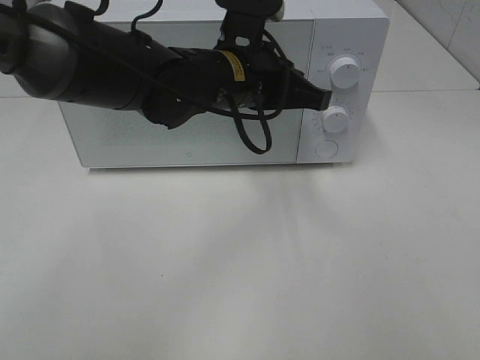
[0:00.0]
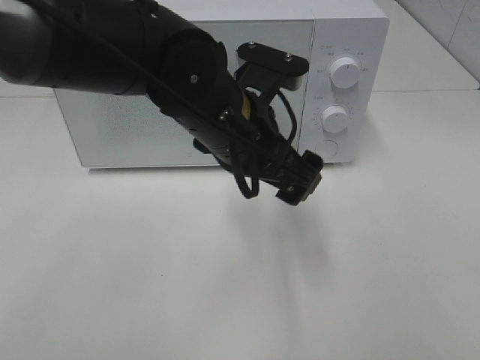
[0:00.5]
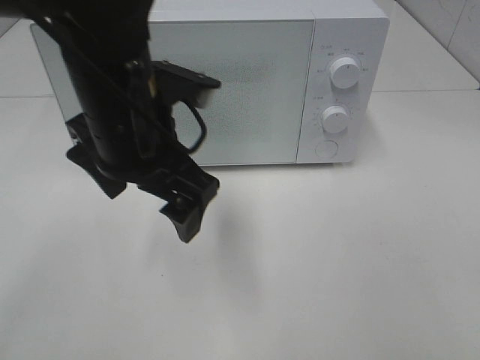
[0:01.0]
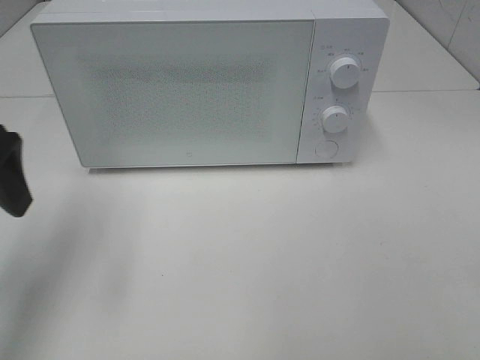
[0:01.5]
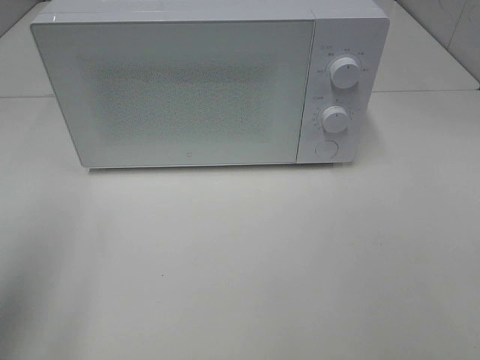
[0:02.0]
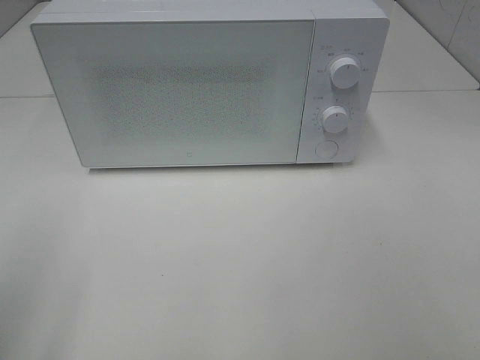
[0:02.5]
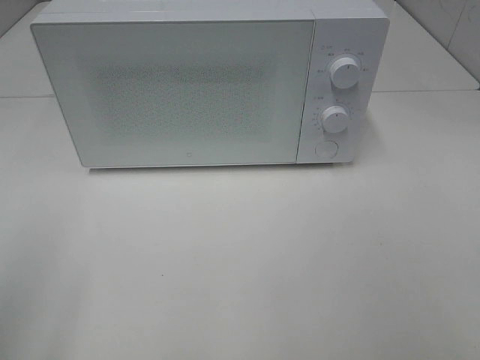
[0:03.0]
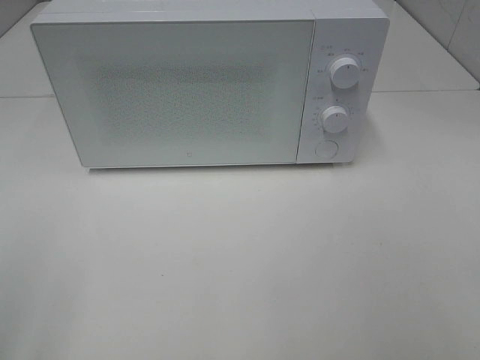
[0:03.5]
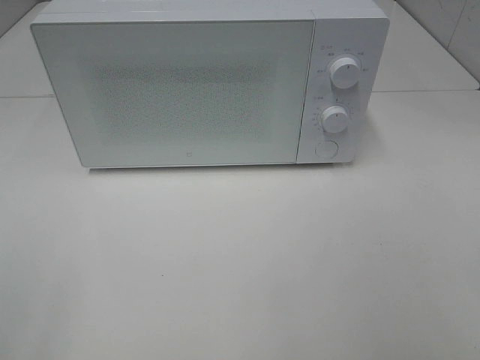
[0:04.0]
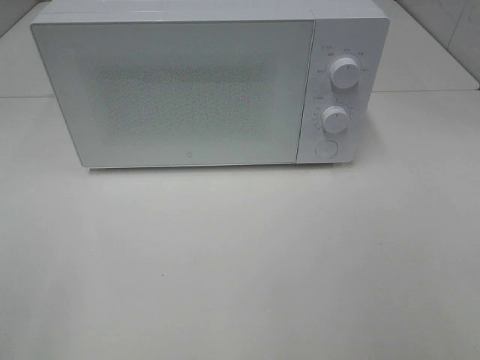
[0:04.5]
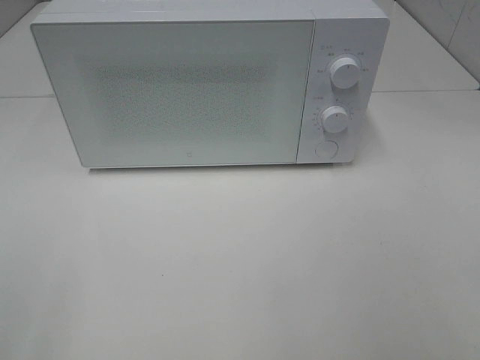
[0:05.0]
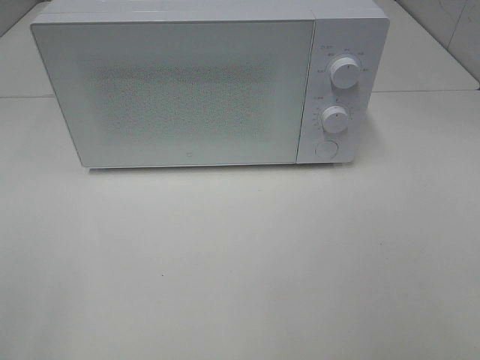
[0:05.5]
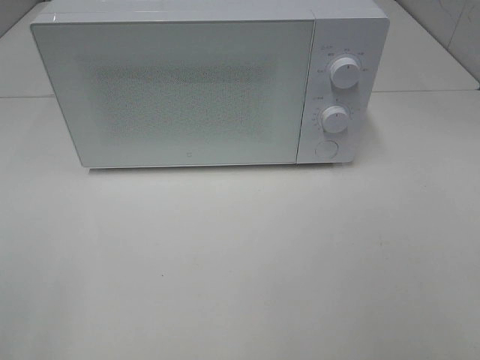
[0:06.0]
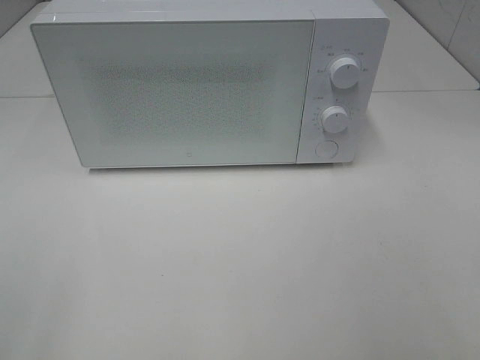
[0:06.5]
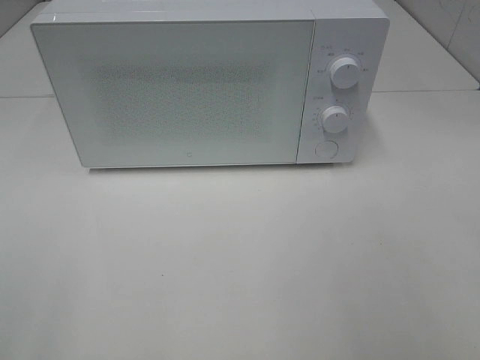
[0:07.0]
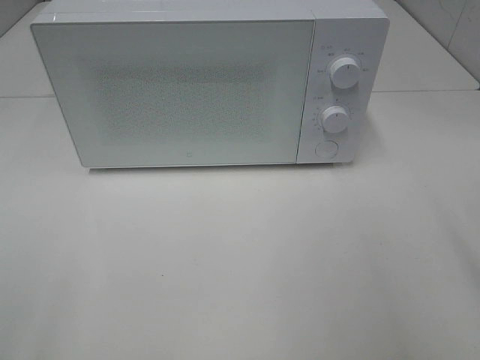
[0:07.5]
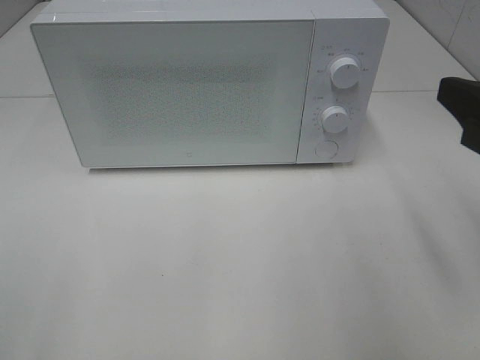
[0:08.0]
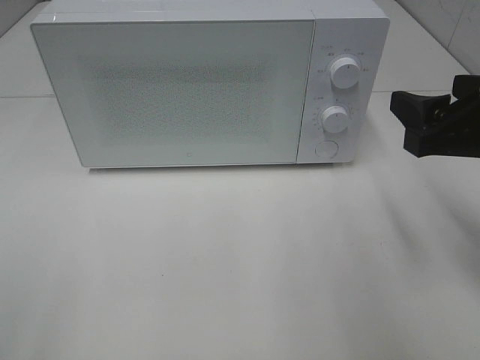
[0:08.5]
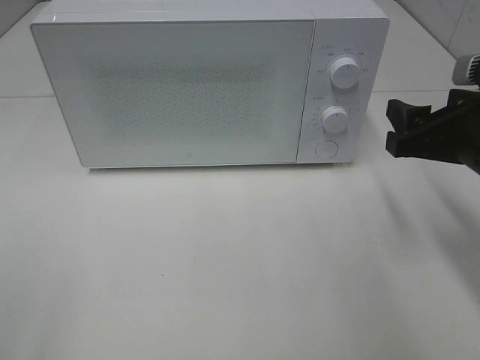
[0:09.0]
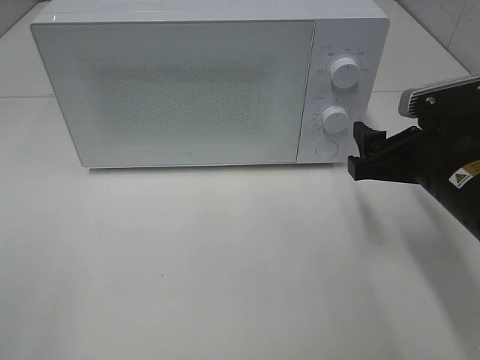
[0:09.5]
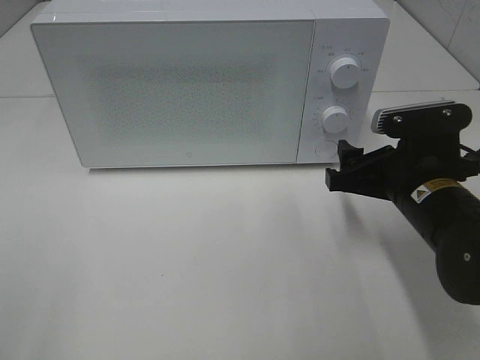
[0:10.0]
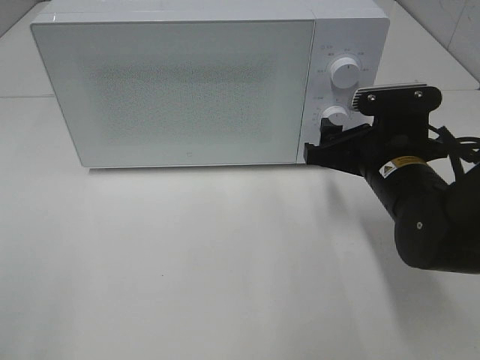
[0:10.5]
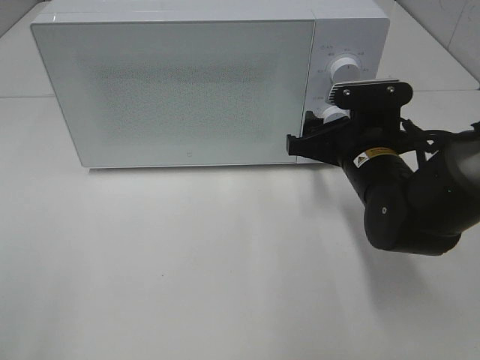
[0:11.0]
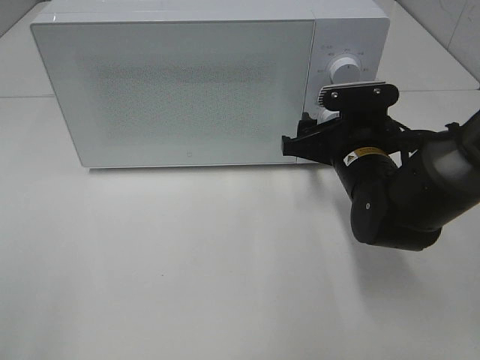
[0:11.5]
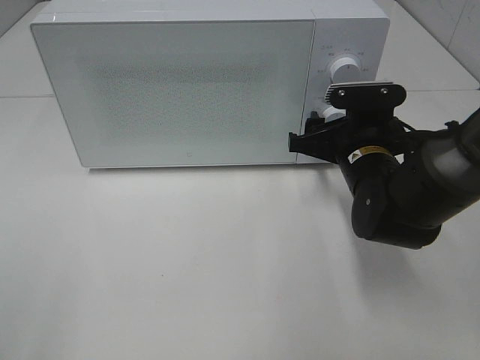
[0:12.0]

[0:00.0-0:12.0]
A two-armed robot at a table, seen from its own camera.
Task of the whole recording: Heat the burger.
0:00.0 to 0:02.0: The left gripper moves to the left and backward, approximately 35 cm, and opens its fingers.
0:02.0 to 0:04.0: The left gripper is displaced backward by some 15 cm.
0:04.0 to 0:06.0: Both grippers stay put.
0:06.0 to 0:08.0: The right gripper shifts approximately 15 cm forward.
0:08.0 to 0:10.0: The right gripper shifts some 15 cm downward, forward and to the left.
0:10.0 to 0:12.0: The right gripper goes about 5 cm forward.

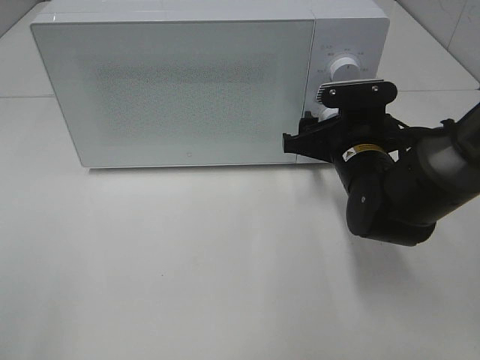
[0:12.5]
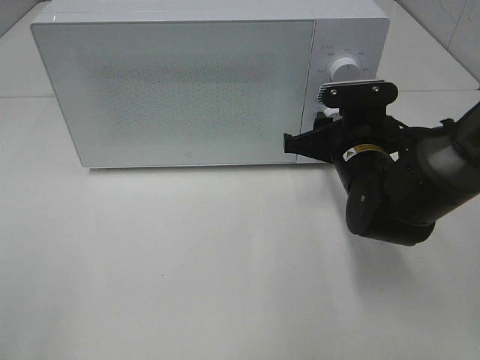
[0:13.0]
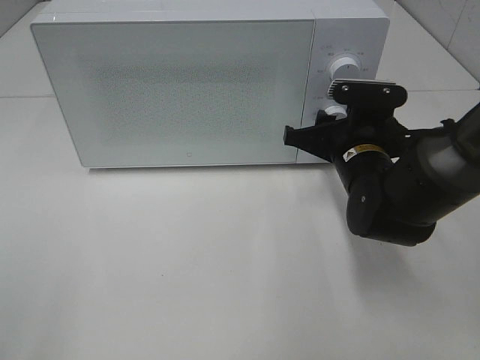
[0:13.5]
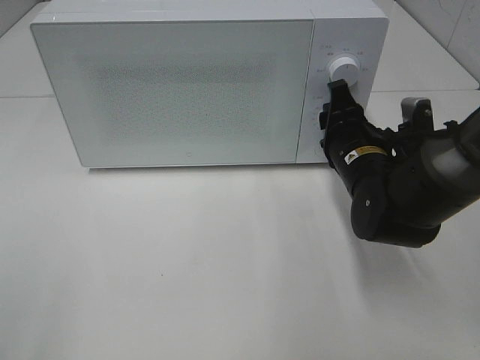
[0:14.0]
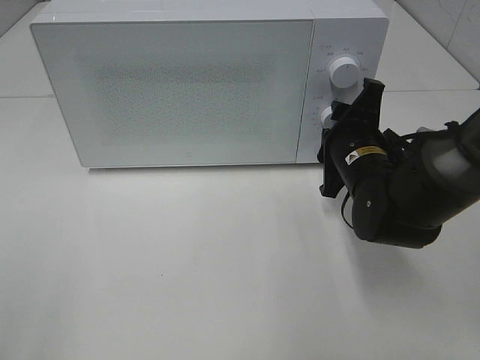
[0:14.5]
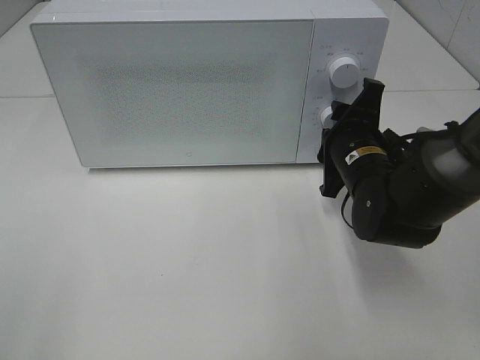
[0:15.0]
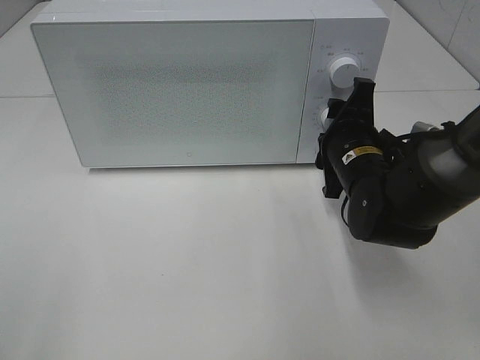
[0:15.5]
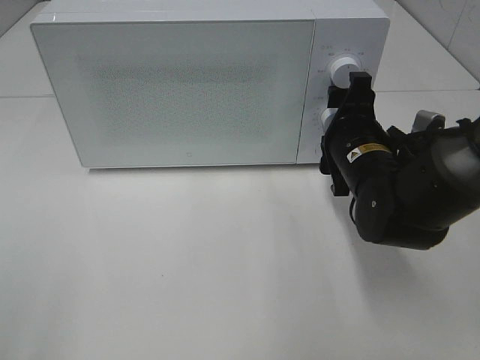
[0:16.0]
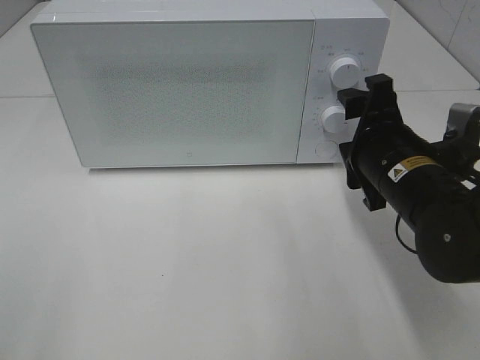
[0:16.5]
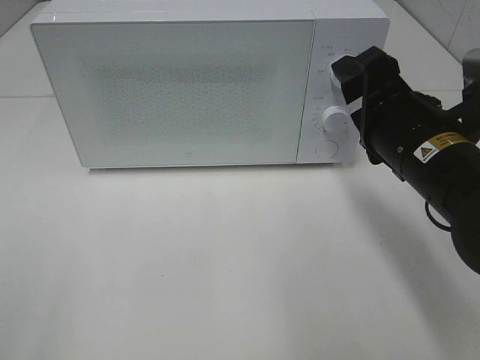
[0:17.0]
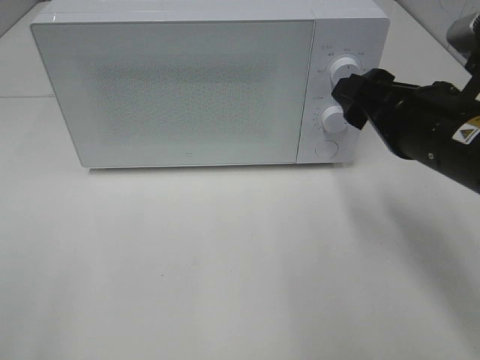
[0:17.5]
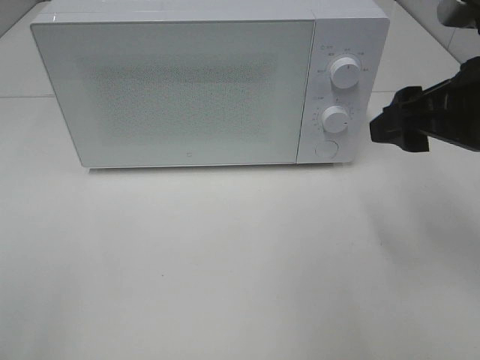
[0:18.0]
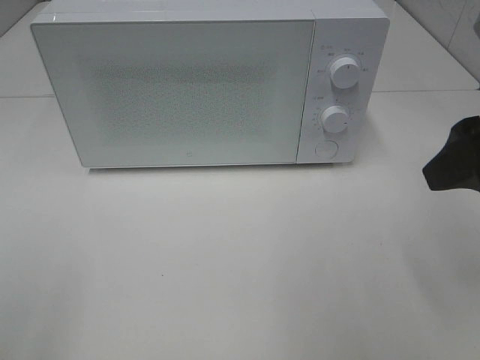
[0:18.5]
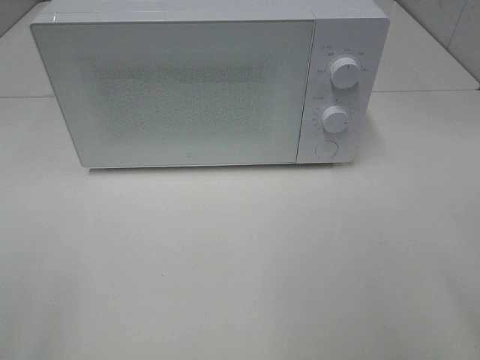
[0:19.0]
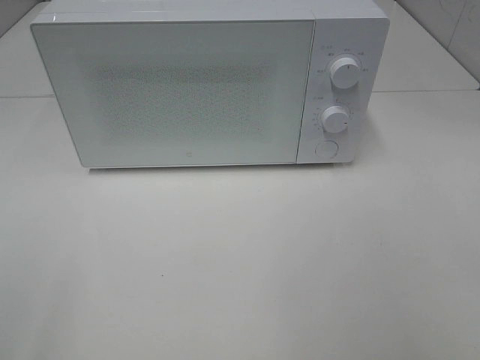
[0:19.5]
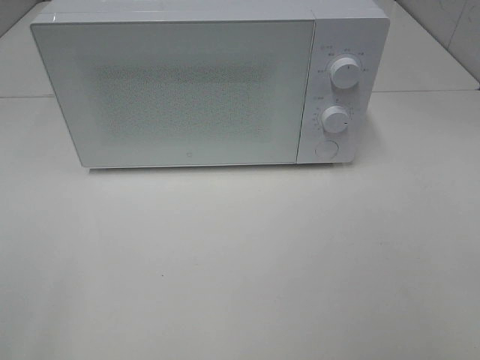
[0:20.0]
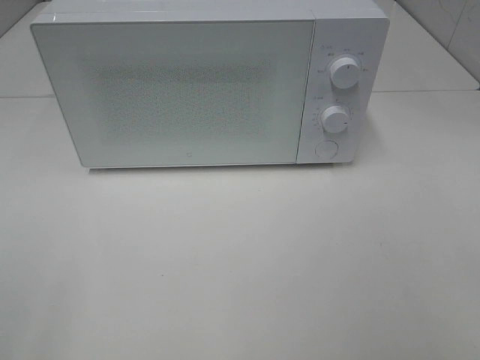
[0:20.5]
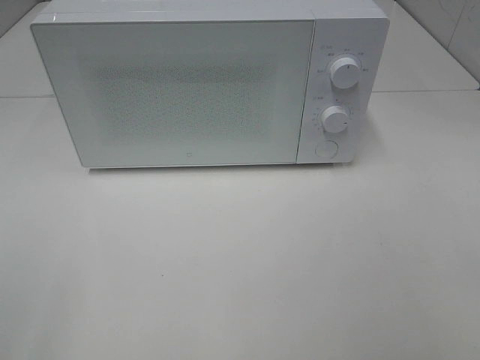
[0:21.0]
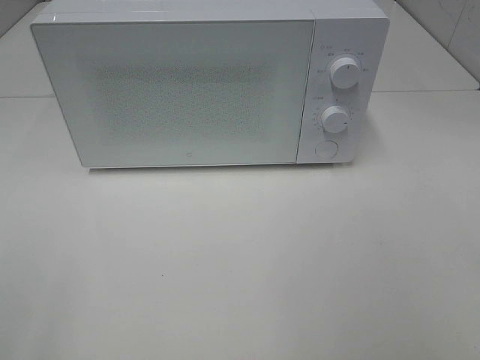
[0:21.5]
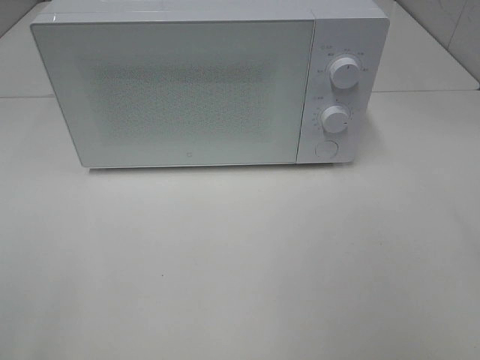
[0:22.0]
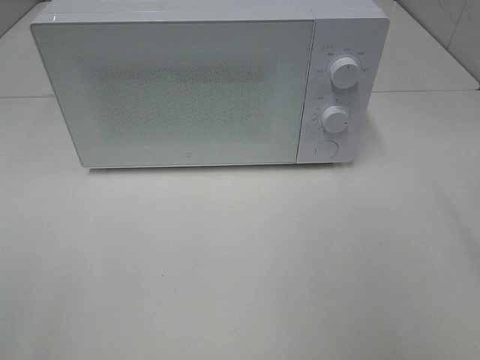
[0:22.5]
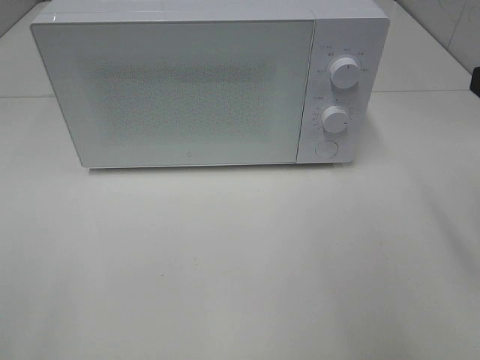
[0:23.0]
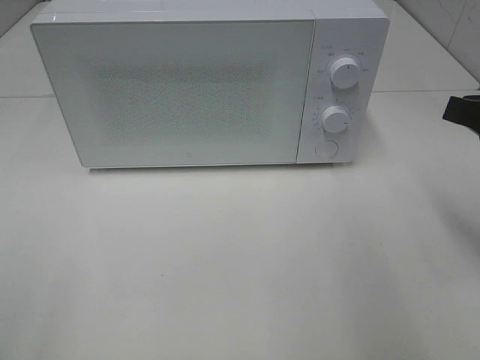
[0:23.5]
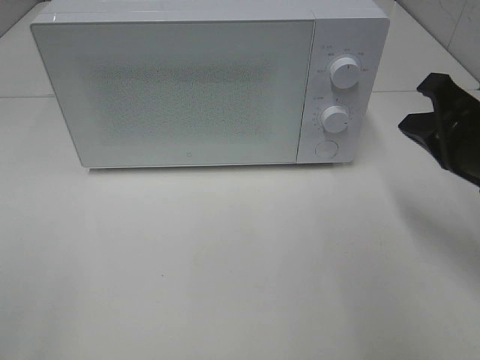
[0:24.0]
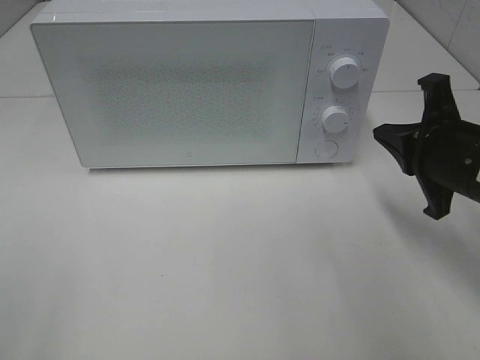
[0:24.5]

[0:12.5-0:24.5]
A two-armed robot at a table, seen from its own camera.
Task of the whole recording: Heat the burger.
Step, 0:12.5 to 0:15.0: Right hand: twist timer button.
0:12.5 to 0:14.5: The right gripper closes.
0:14.5 to 0:16.5: The right gripper heads backward, covering approximately 5 cm, and opens up.
0:16.5 to 0:18.5: The right gripper travels upward, backward and to the right by roughly 20 cm.
0:18.5 to 0:20.5: The right gripper heads backward, covering some 20 cm.
0:22.5 to 0:24.5: The right gripper goes some 20 cm downward and forward, and closes its fingers.

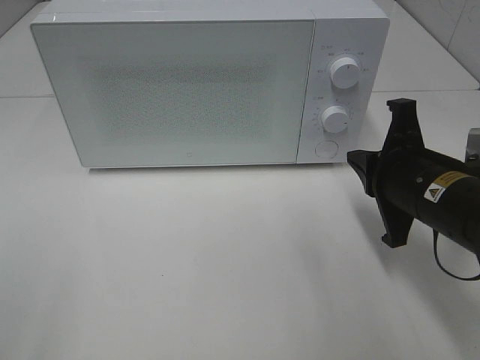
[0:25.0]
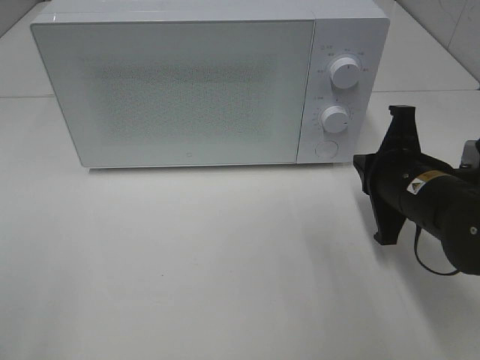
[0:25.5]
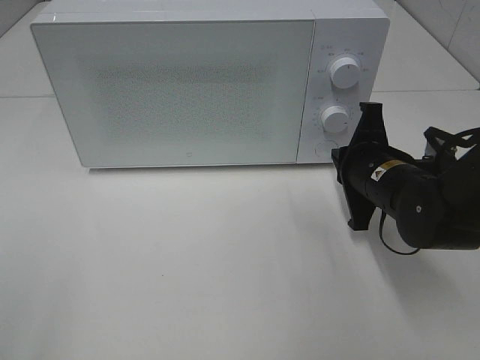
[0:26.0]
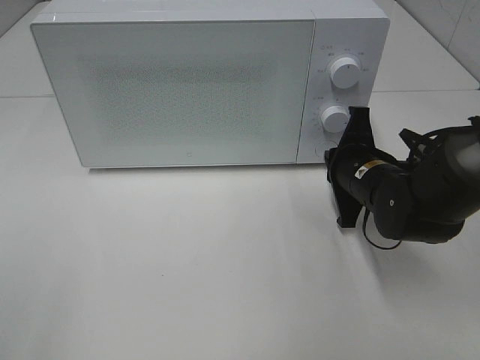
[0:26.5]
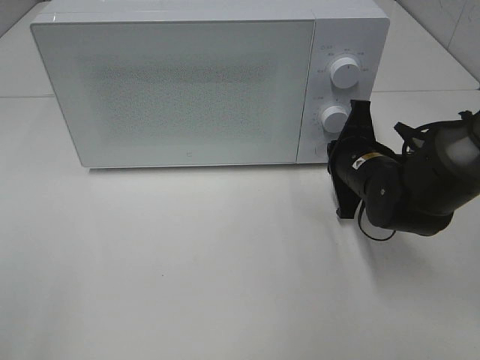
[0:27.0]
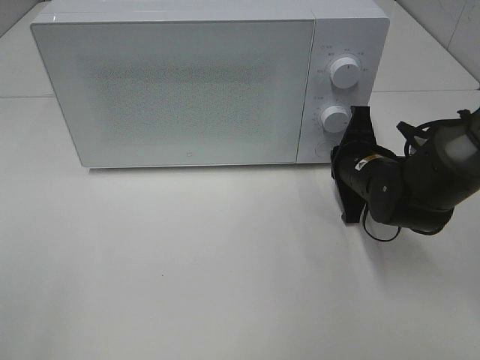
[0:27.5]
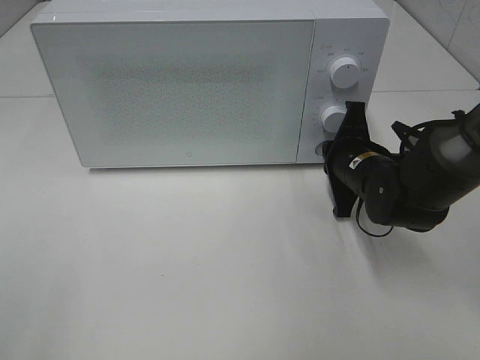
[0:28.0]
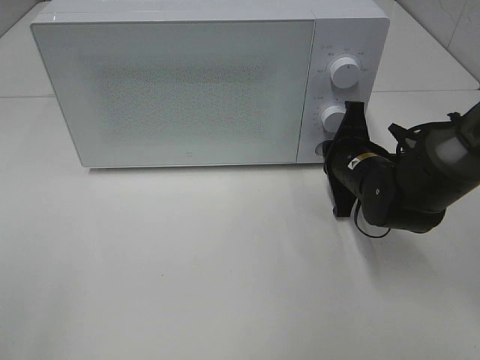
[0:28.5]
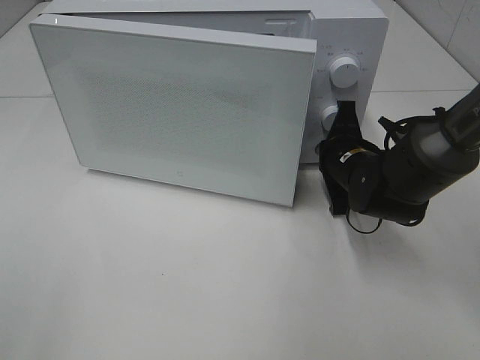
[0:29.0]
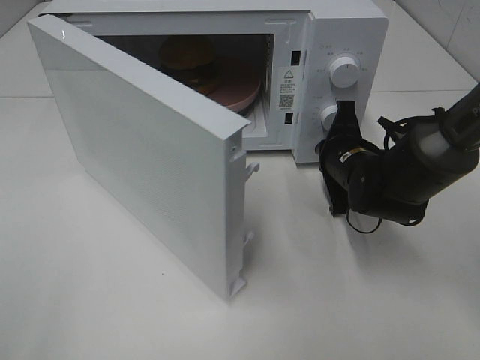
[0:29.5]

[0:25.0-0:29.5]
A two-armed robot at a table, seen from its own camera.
Task of the whole recording: Heat the burger.
0:25.0 to 0:27.0: The right gripper goes approximately 10 cm forward and downward.
